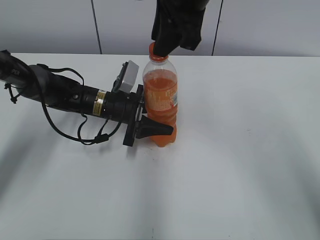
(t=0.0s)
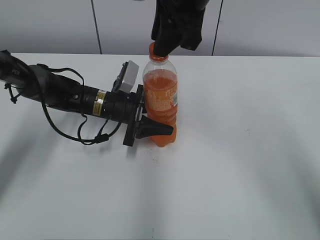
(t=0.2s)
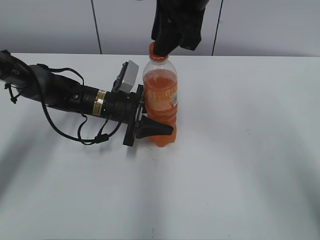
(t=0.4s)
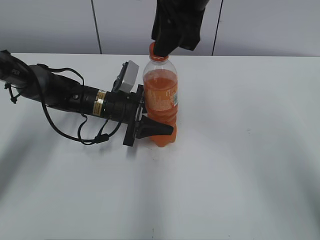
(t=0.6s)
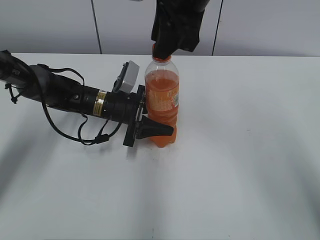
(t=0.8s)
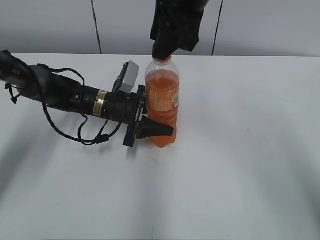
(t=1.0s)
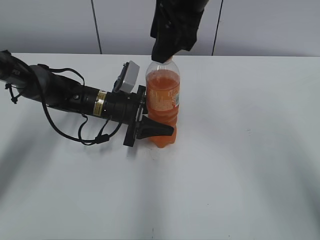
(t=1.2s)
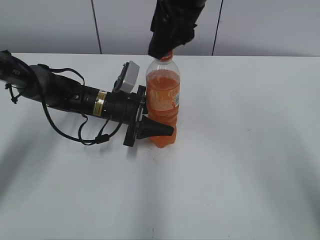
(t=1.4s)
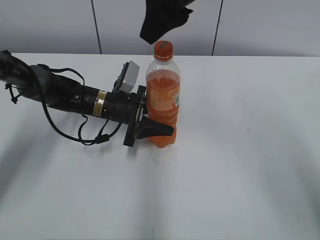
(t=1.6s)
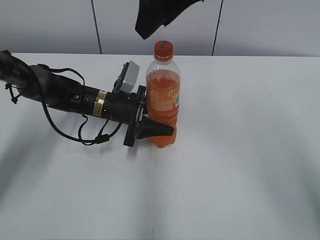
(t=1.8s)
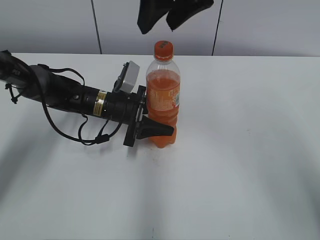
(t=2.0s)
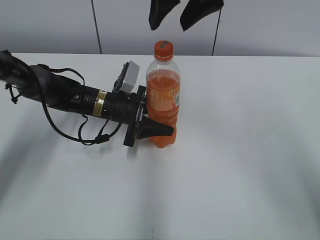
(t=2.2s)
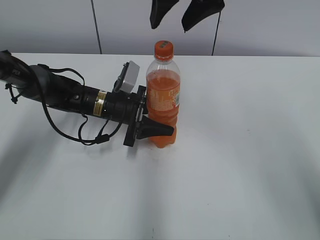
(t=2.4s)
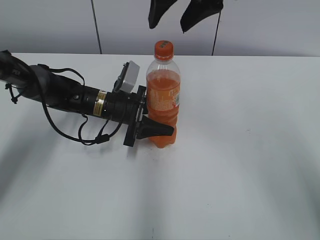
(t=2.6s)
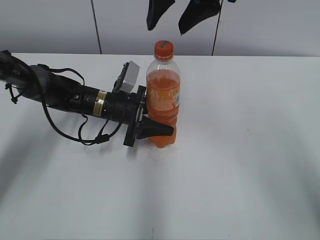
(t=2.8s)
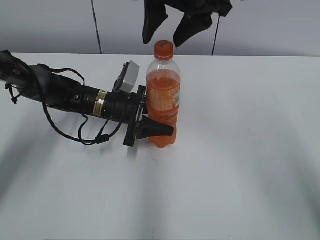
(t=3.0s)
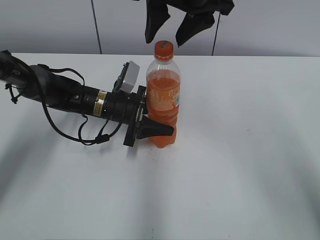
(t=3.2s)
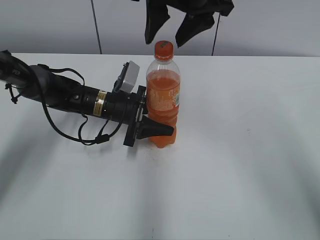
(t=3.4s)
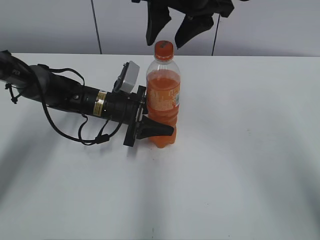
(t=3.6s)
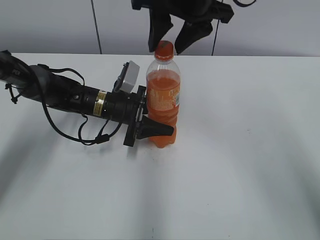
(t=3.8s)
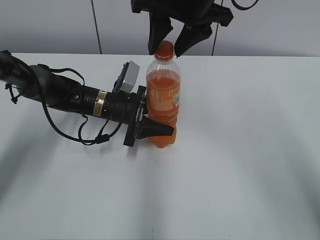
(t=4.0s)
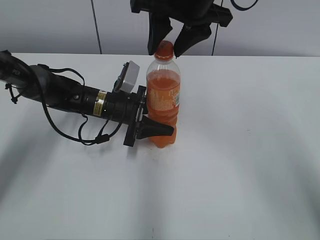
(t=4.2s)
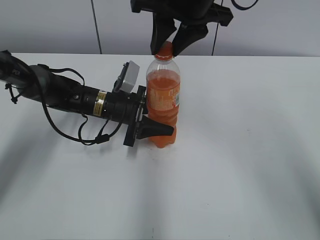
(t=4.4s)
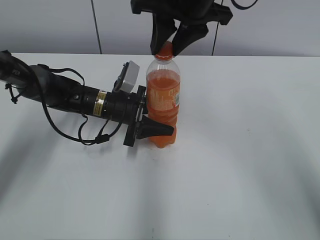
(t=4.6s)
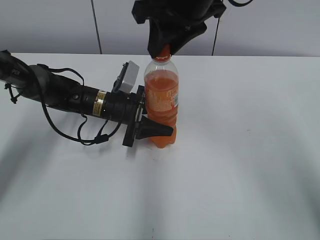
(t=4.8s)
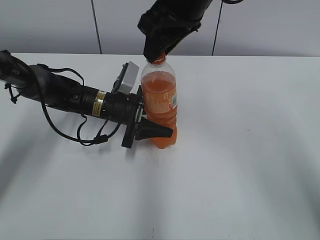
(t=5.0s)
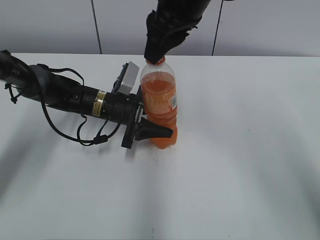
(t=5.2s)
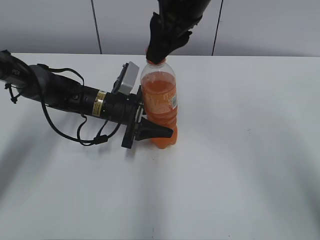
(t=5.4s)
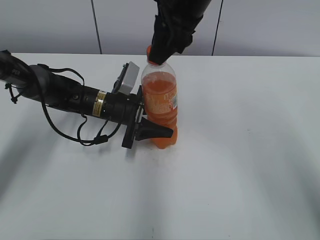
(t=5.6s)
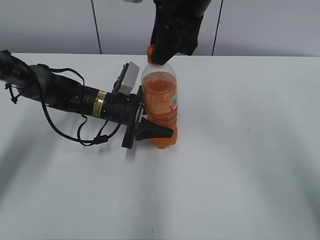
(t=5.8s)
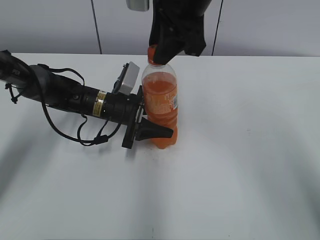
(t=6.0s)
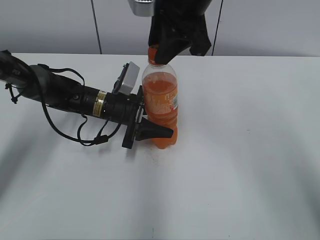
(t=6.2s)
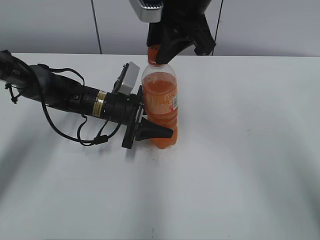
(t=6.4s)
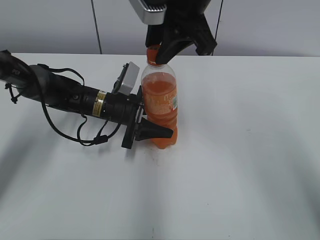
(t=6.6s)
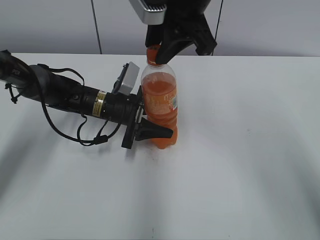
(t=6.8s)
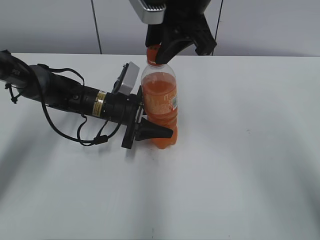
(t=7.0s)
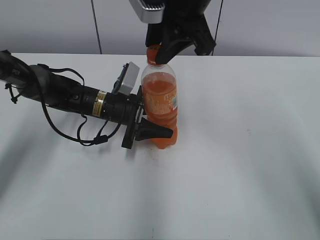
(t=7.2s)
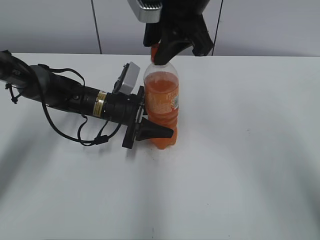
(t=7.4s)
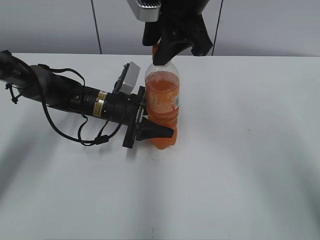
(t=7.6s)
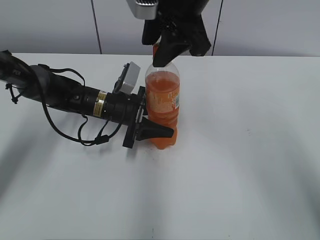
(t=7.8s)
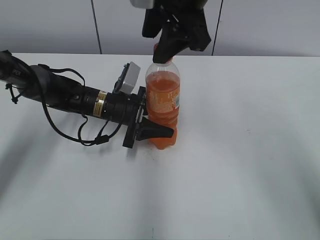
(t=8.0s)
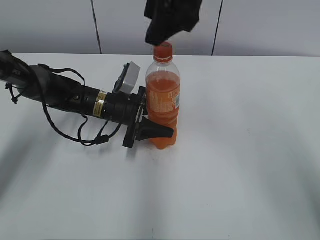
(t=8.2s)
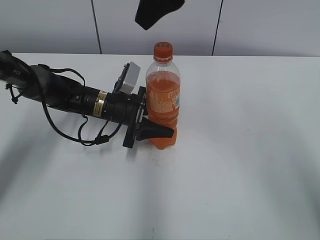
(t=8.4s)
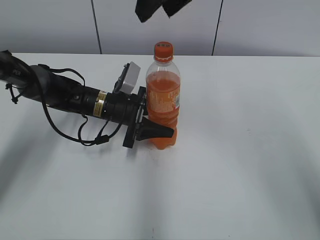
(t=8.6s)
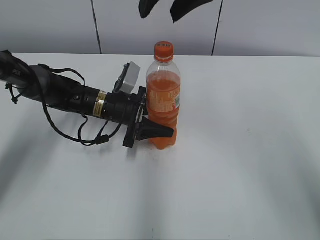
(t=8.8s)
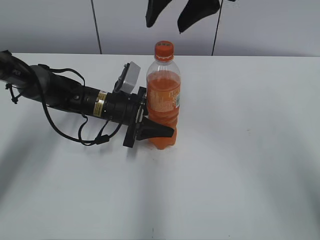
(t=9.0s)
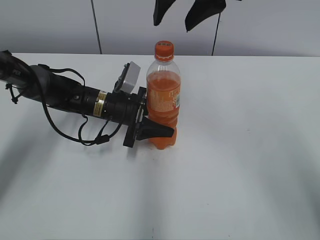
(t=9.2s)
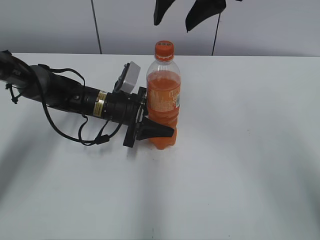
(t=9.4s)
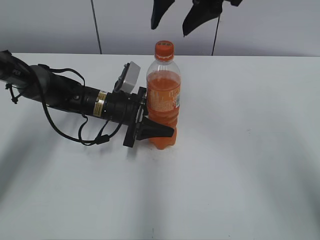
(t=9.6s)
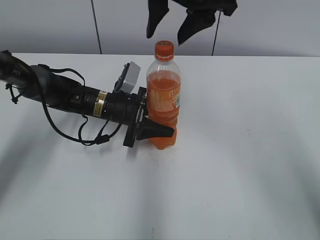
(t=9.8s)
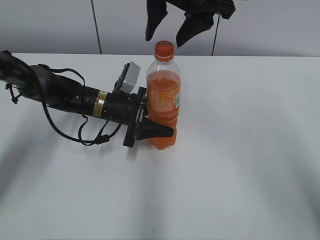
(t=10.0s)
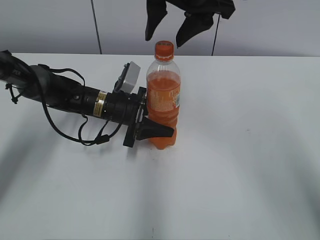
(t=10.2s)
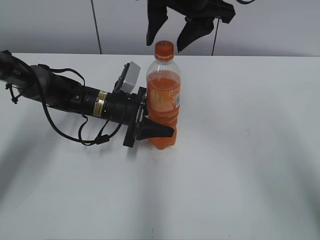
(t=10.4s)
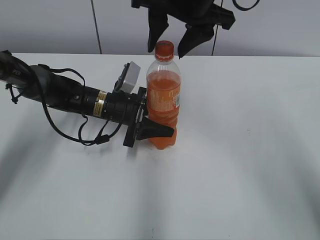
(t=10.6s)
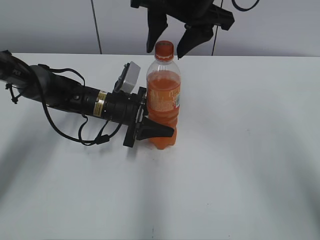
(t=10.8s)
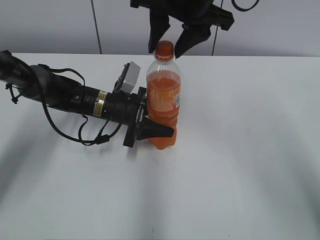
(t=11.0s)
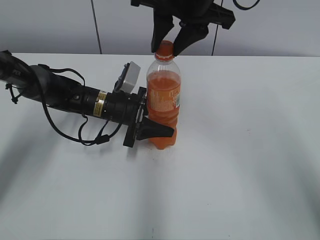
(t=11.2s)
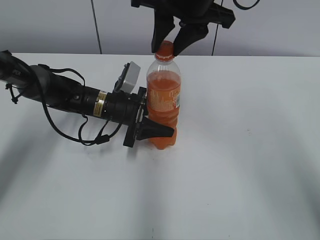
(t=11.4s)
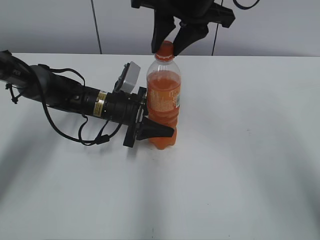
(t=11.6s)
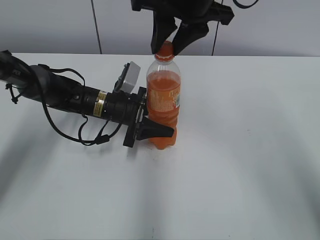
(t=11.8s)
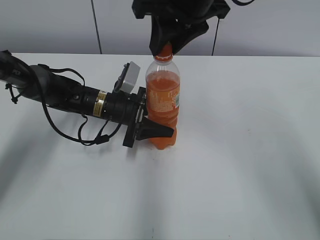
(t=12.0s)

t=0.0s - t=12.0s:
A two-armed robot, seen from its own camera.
t=0.0s - t=1.6s: The right gripper opens up.
t=3.0s - t=4.4s: The right gripper closes its fingers.
t=6.0s - t=7.6s: The grippers move only a little.
t=7.6s - t=9.0s: The right gripper opens.
t=9.0s - t=10.4s: The grippers move only a little.
t=10.4s - t=12.0s: The right gripper closes.

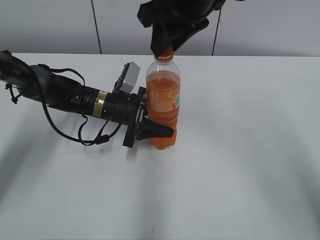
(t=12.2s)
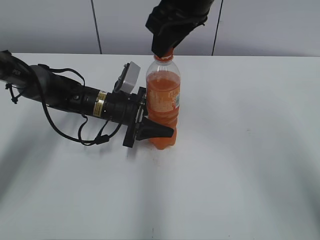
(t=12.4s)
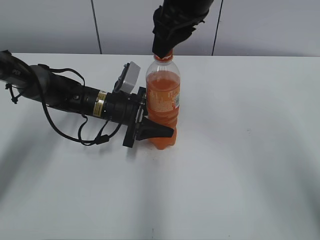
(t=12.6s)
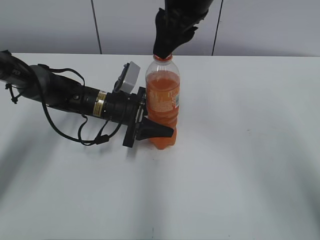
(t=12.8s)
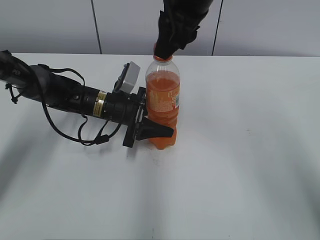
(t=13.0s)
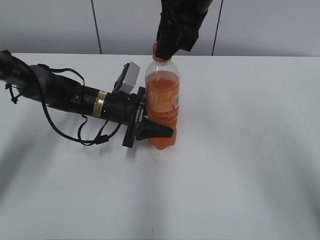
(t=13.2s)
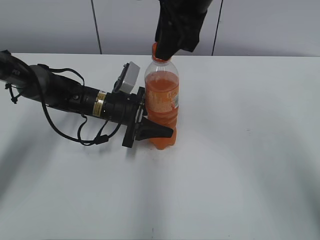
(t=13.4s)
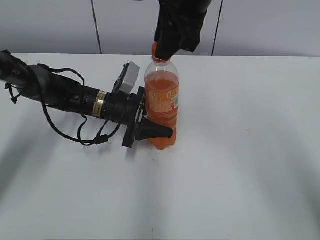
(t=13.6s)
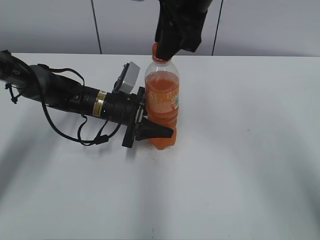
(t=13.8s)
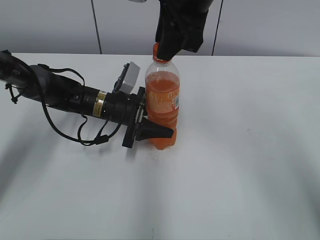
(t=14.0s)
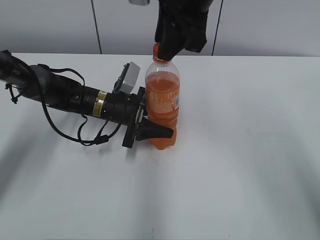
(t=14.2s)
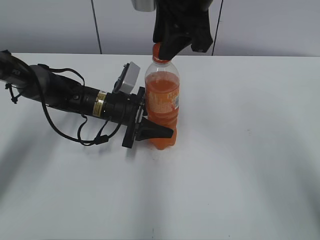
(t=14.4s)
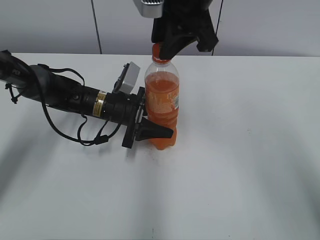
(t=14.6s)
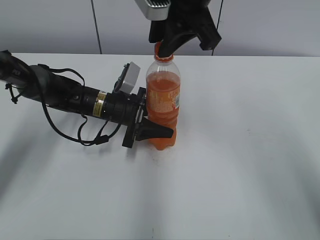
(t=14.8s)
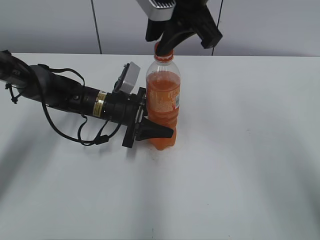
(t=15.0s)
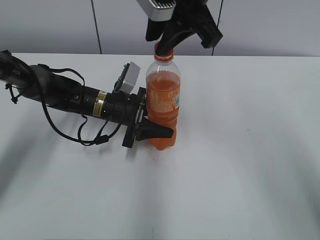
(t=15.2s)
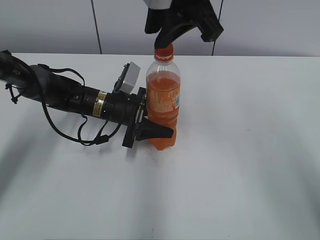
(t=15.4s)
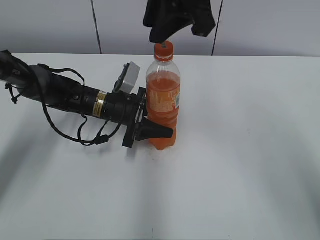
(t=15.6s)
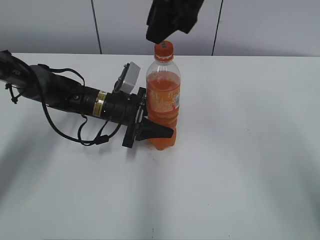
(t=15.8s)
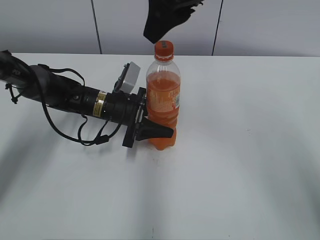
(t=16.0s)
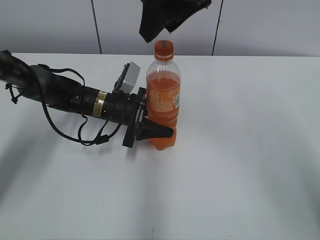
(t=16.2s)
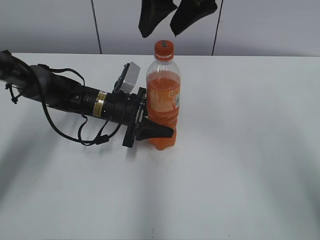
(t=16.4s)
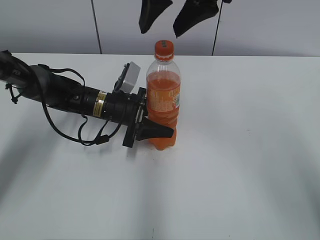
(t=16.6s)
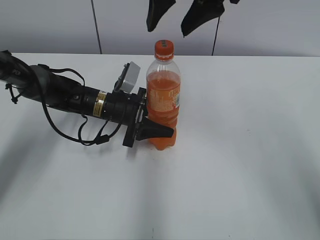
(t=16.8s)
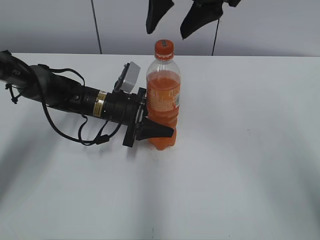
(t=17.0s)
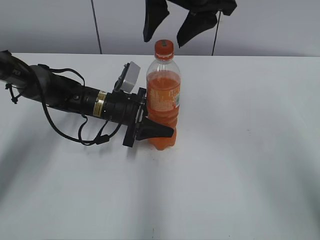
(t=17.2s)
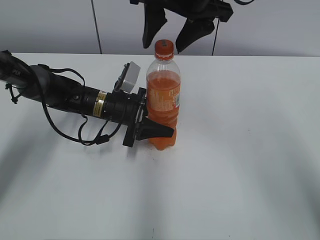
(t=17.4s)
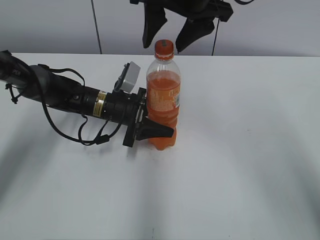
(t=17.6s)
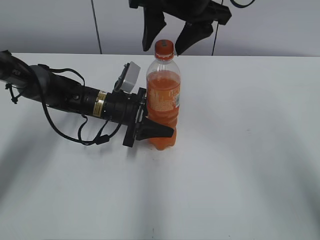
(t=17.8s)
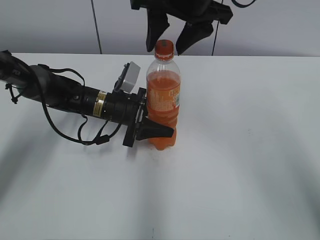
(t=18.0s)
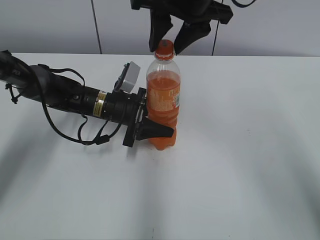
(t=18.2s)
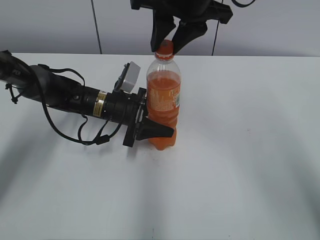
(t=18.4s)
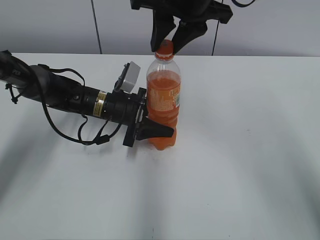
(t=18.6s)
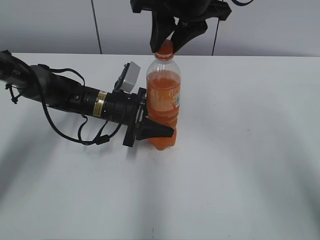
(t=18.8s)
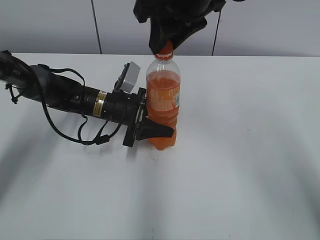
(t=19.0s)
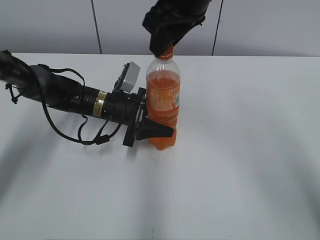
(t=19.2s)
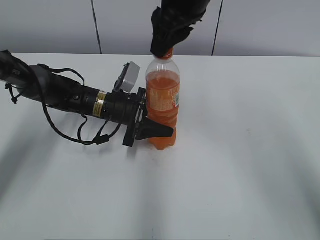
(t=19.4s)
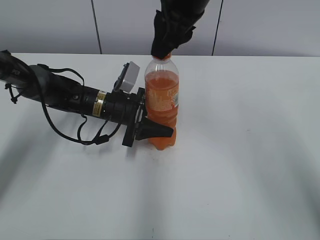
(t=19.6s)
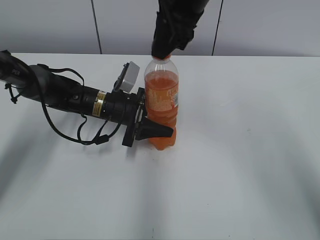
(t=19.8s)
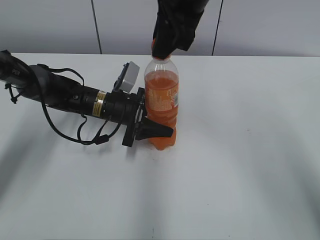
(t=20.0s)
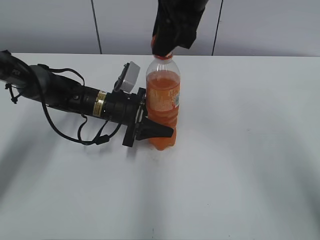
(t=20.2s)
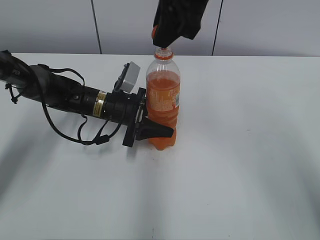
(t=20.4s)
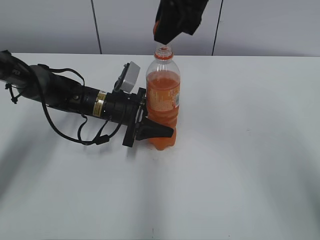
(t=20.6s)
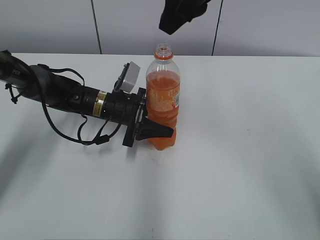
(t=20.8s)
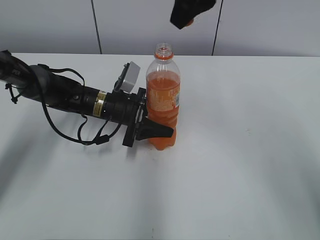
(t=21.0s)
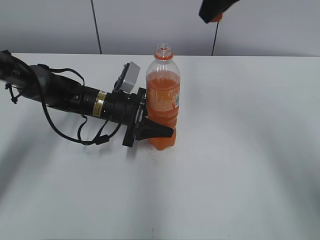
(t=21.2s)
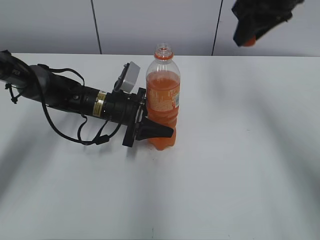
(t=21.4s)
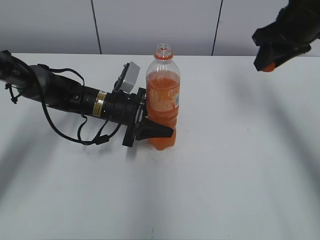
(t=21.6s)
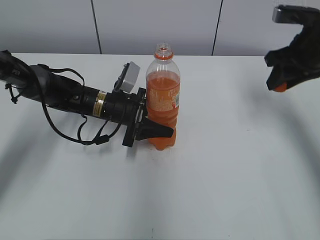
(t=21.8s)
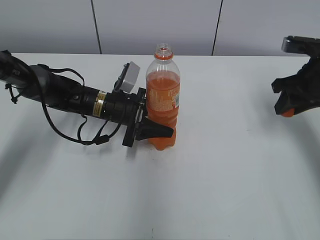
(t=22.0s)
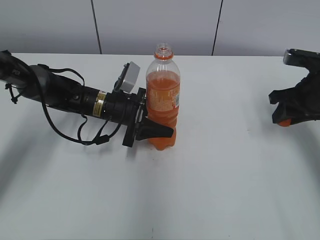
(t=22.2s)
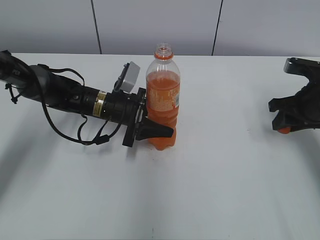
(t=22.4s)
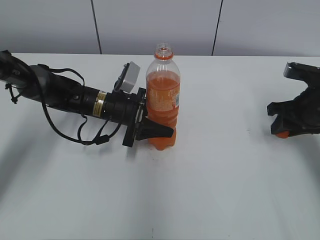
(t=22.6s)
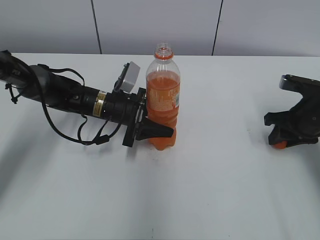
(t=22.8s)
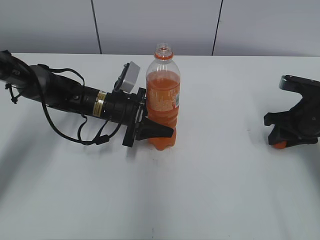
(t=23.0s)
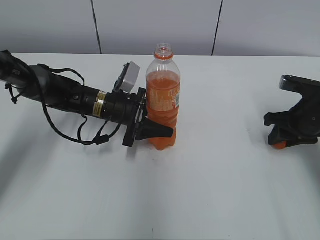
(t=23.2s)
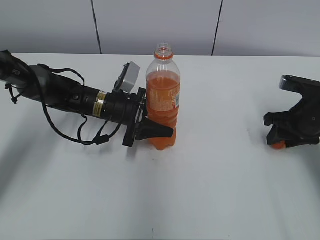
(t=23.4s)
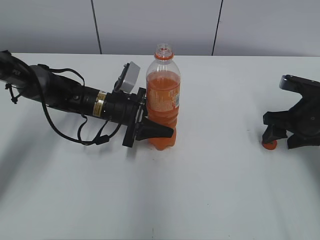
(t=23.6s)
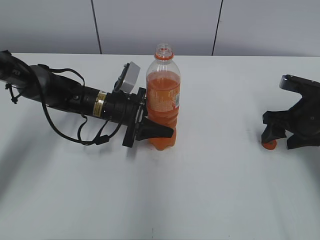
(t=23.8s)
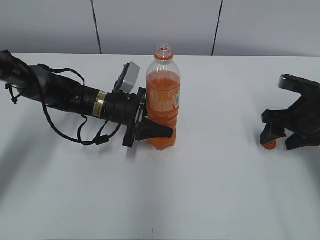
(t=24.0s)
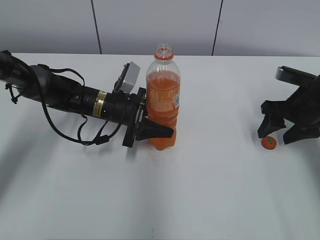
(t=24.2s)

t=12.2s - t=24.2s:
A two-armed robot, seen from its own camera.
Step, t=20.4s - t=24.0s: Place the bottle cap on the right.
t=15.2s - t=16.6s: The right gripper opens its fingers.
t=16.6s - t=18.2s: The right gripper closes up.
t=18.2s - t=19.8s: The right gripper closes.
t=19.8s - t=21.2s: The right gripper goes about 10 cm to the right.
t=21.2s - t=22.6s: The right gripper goes about 30 cm downward and to the right.
t=22.6s - t=24.2s: The right gripper opens up.
